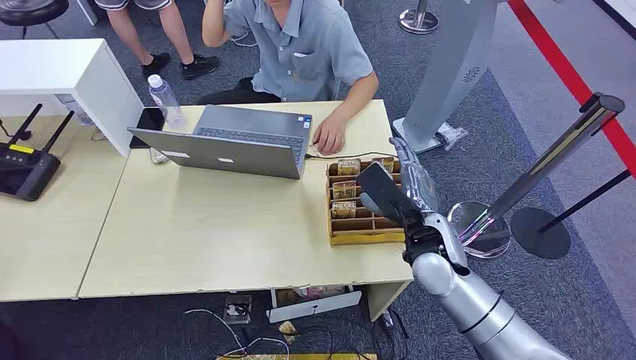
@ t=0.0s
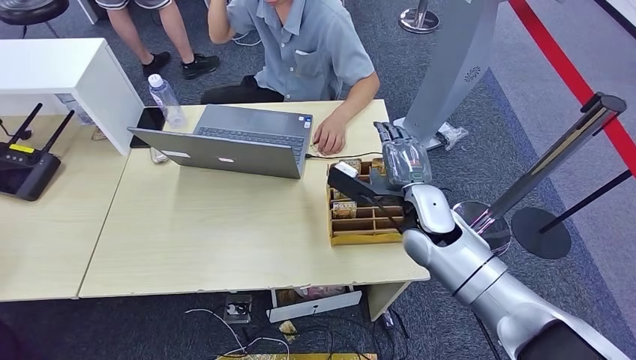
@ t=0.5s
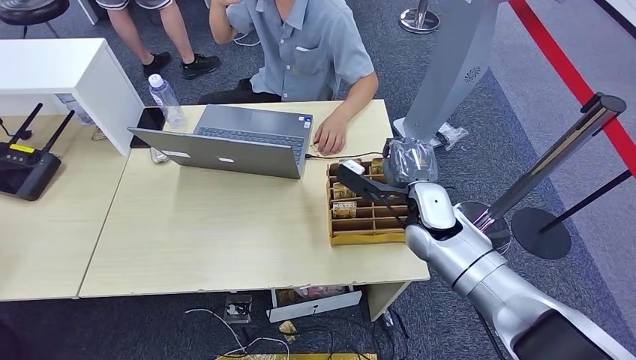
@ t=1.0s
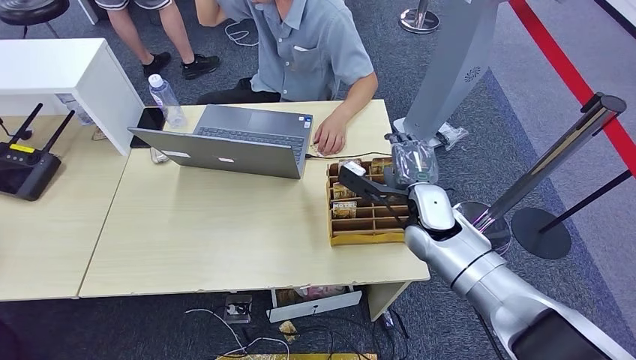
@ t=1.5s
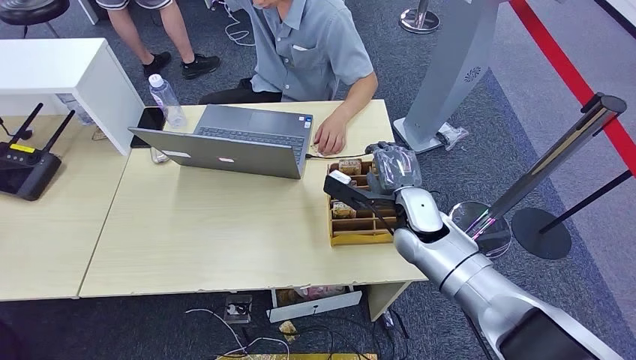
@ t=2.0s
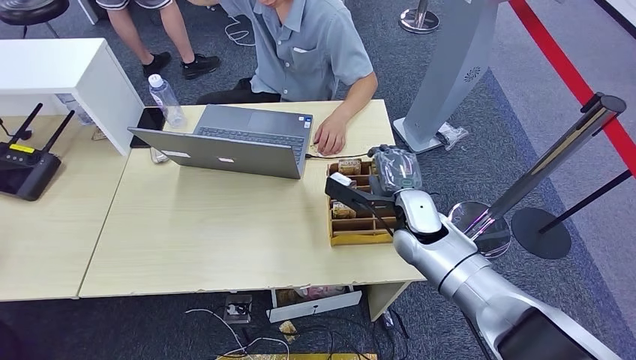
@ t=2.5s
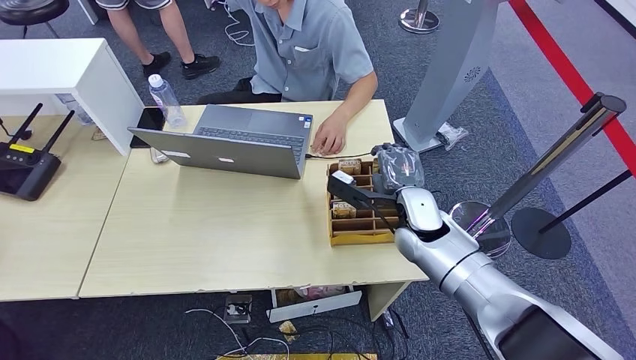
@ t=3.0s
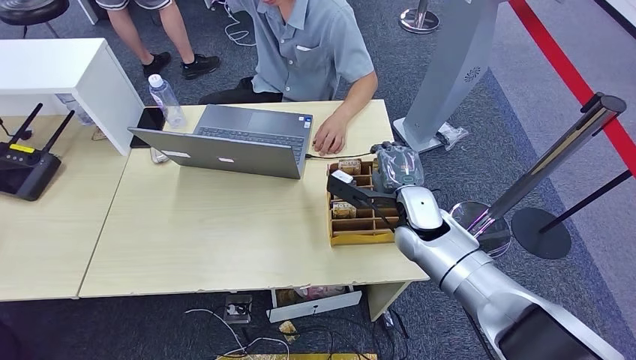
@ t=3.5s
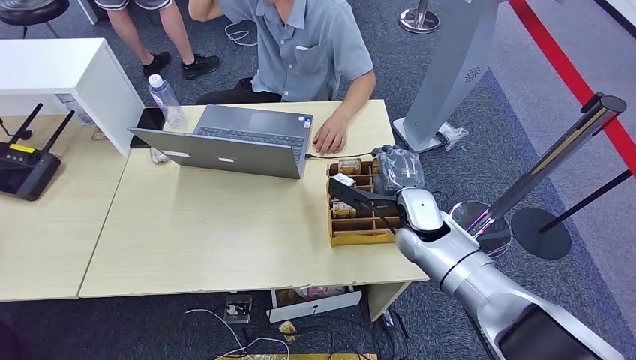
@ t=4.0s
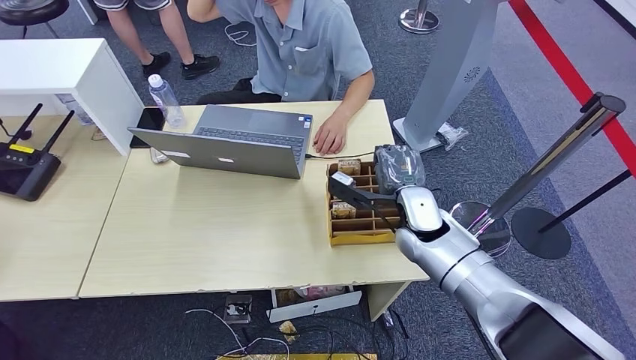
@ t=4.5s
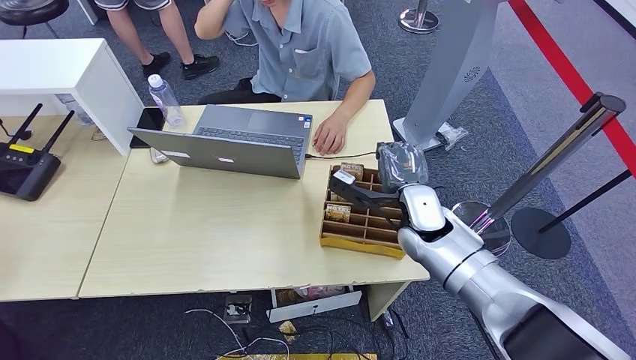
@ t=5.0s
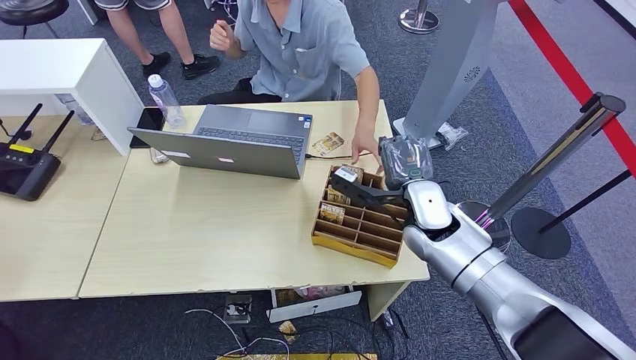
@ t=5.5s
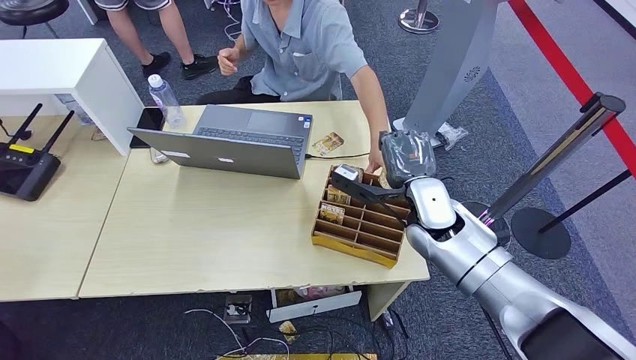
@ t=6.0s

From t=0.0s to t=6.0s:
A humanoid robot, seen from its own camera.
Step, from t=0.0s to t=5.0s: Pick up the room card from the card holder.
Step, from t=5.5s to t=6.0s: Hand the room card to the target.
From t=2.0s to t=6.0s: The hands move only a little.

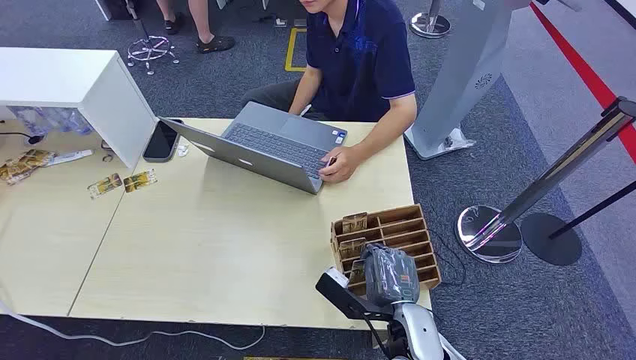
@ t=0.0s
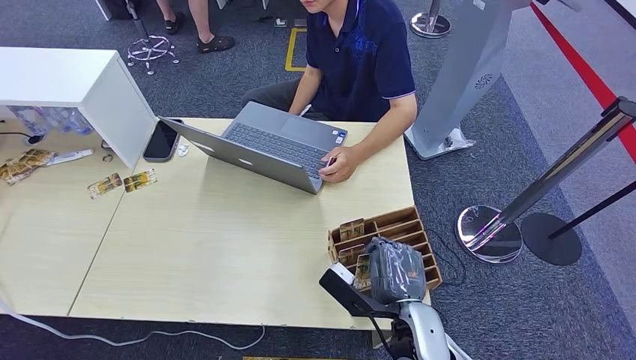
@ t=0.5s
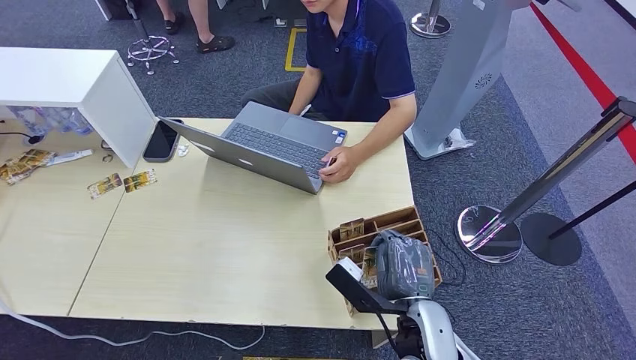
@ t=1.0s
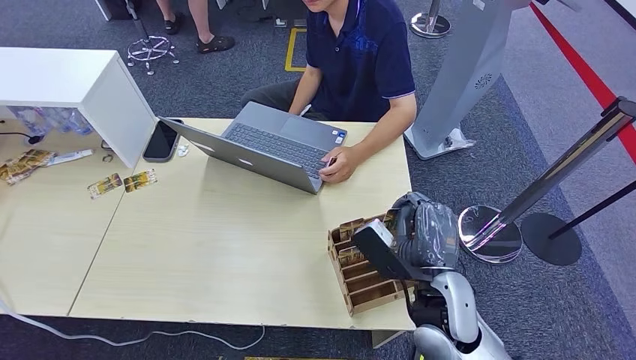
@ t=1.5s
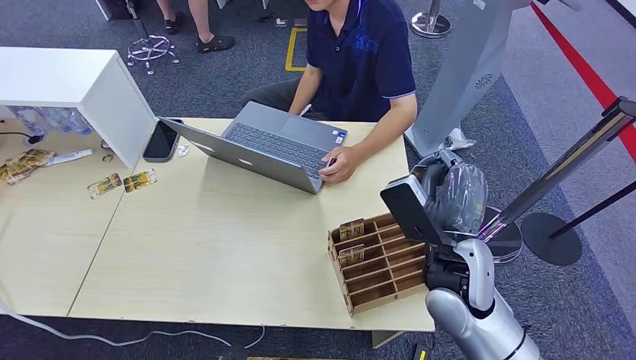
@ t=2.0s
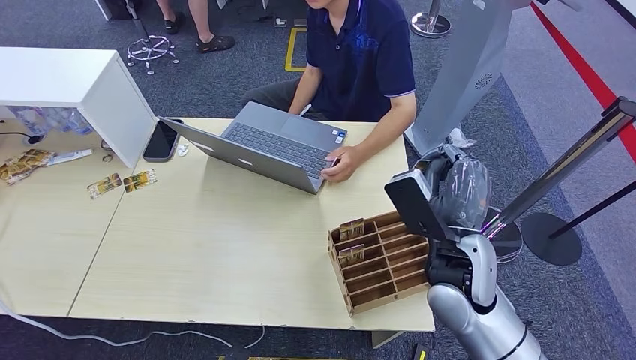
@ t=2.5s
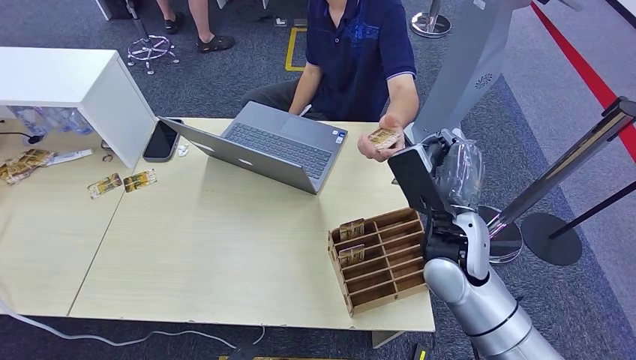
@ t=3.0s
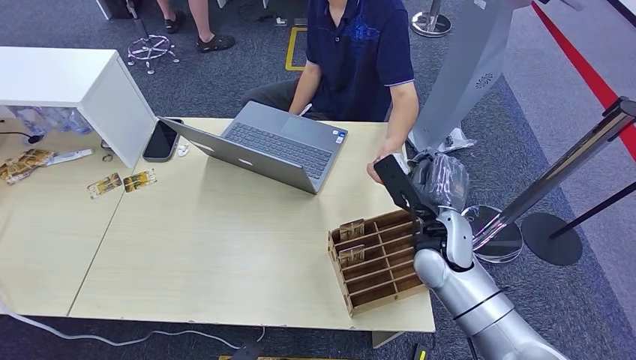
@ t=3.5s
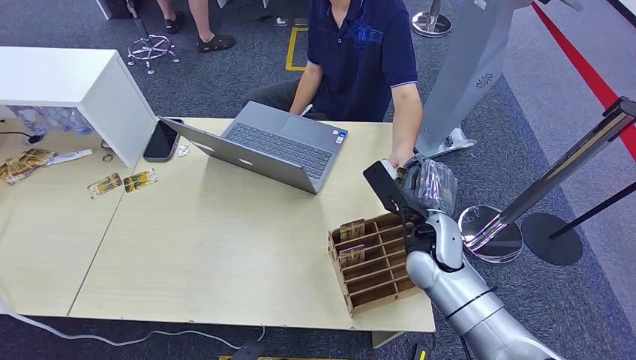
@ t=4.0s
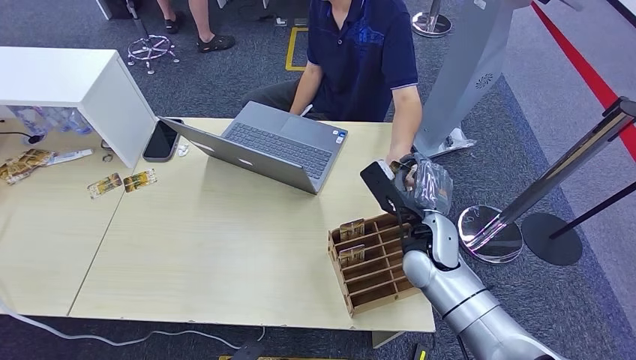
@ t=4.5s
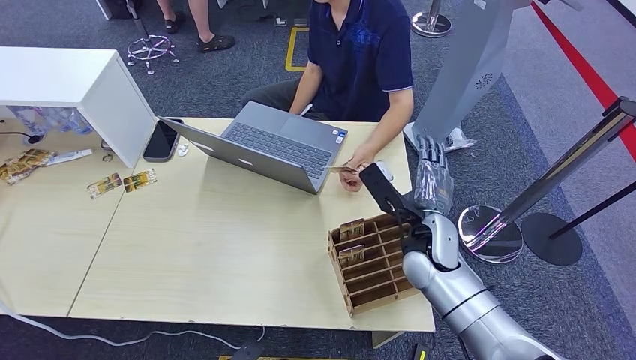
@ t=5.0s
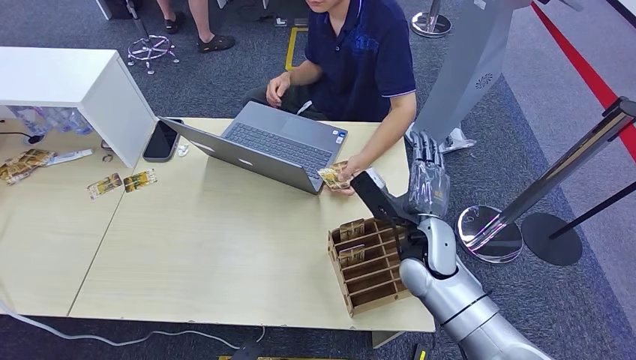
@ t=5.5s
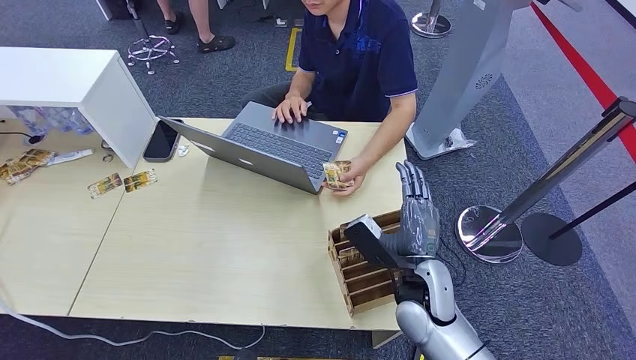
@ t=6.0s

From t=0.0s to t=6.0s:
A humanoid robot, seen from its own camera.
Step, from t=0.0s to t=2.0s: Pick up the room card from the card holder.
Step, from t=3.0s to t=6.0s: Hand the room card to the target.
From t=2.0s to t=4.0s: The right hand is displaced forward and downward by about 10 cm.
From t=4.0s to t=6.0s: The right hand shifts roughly 10 cm backward.

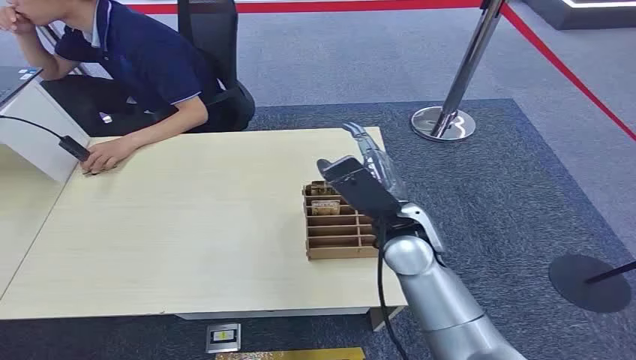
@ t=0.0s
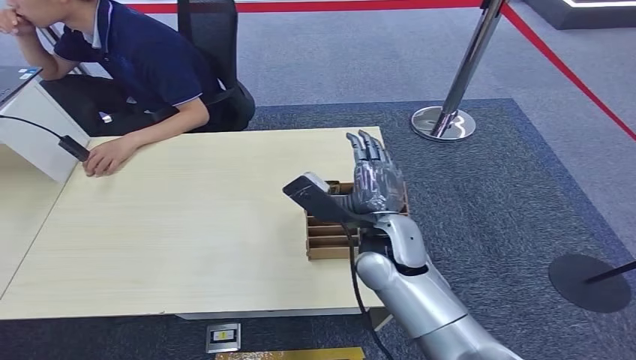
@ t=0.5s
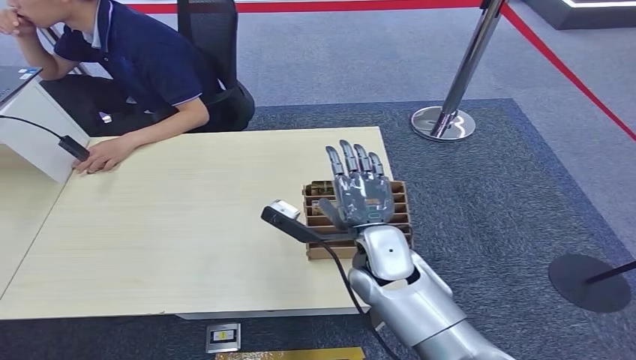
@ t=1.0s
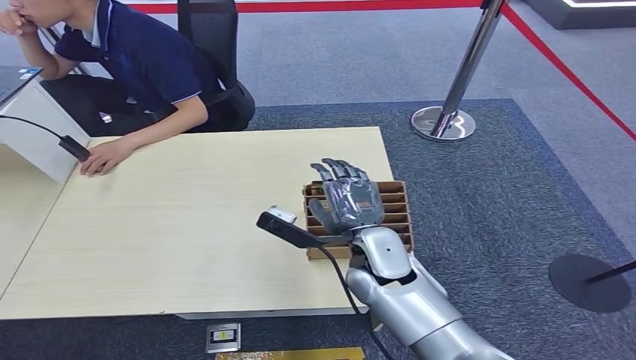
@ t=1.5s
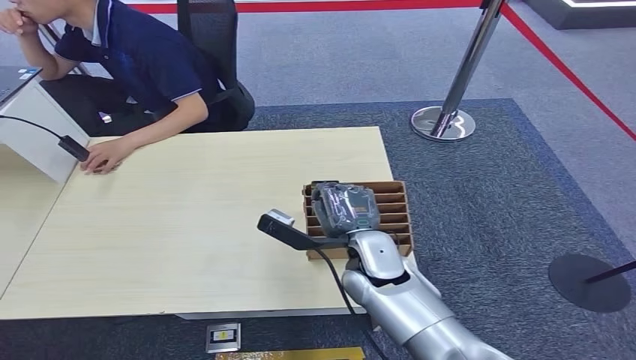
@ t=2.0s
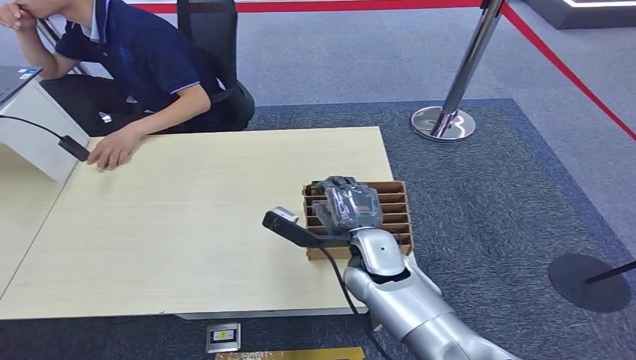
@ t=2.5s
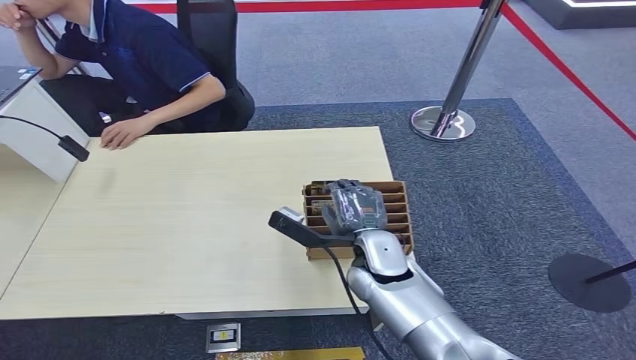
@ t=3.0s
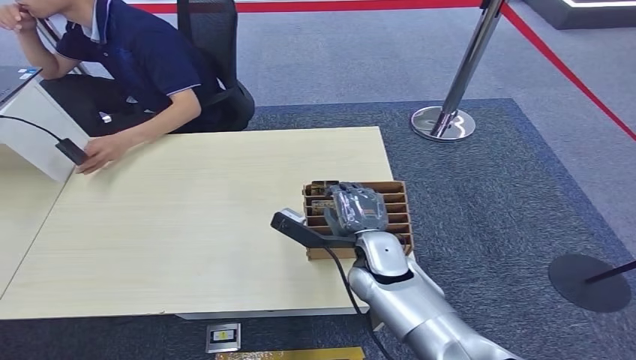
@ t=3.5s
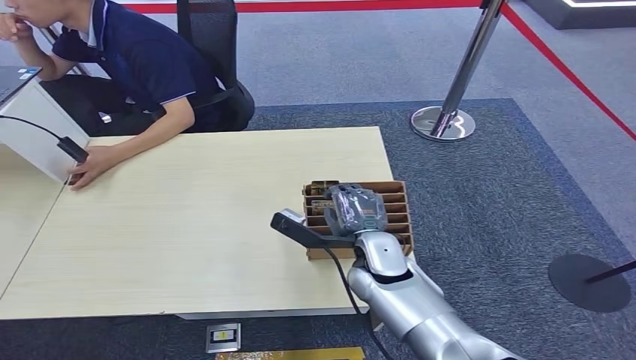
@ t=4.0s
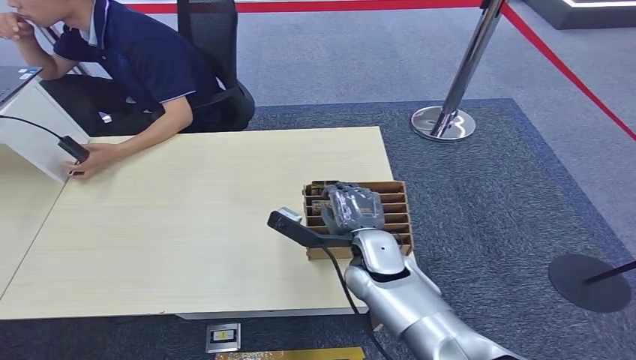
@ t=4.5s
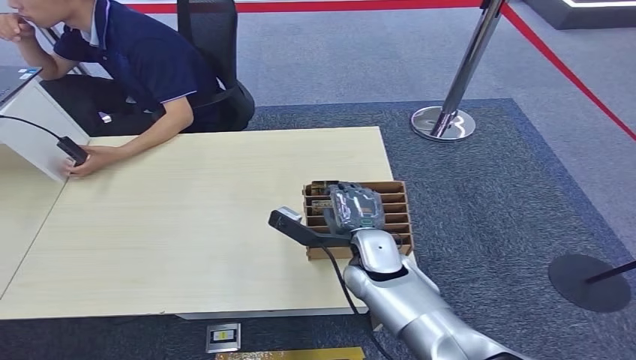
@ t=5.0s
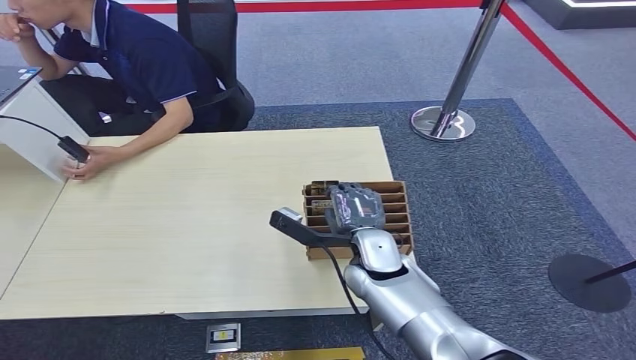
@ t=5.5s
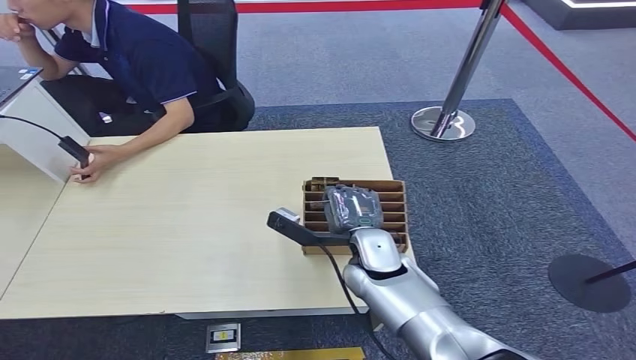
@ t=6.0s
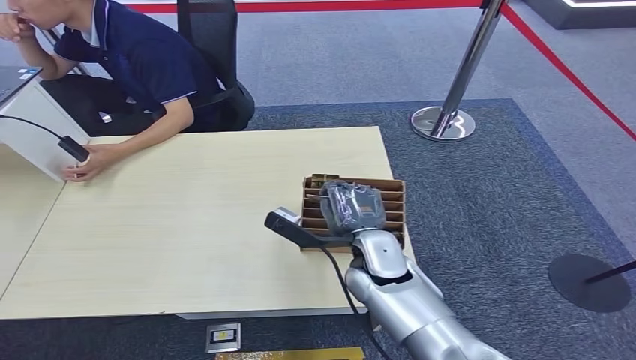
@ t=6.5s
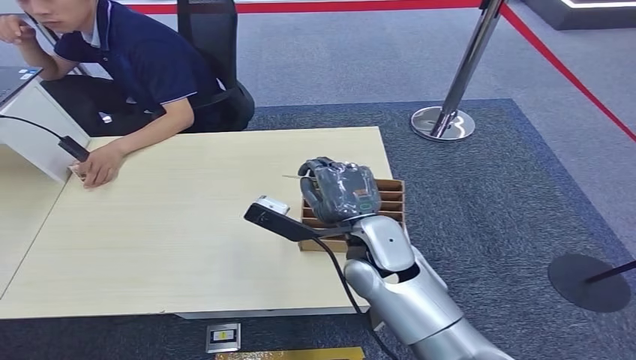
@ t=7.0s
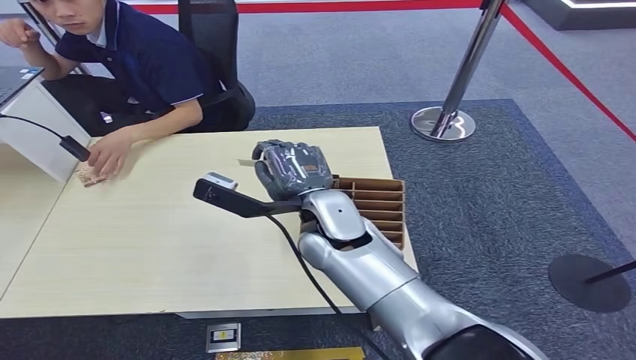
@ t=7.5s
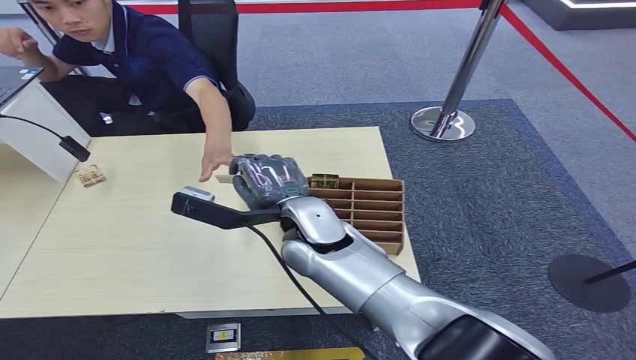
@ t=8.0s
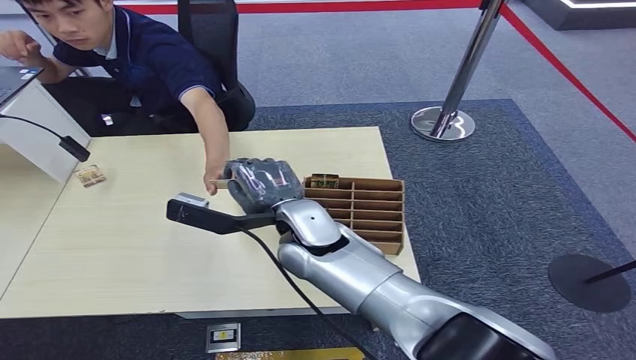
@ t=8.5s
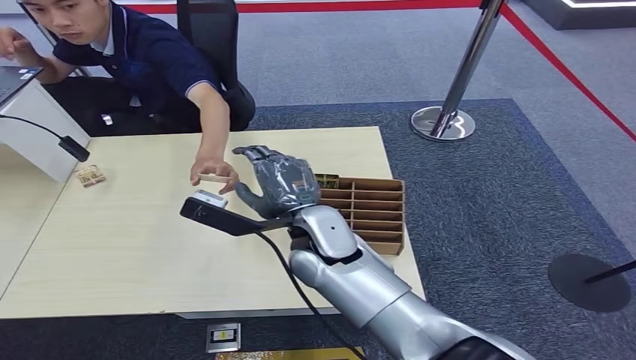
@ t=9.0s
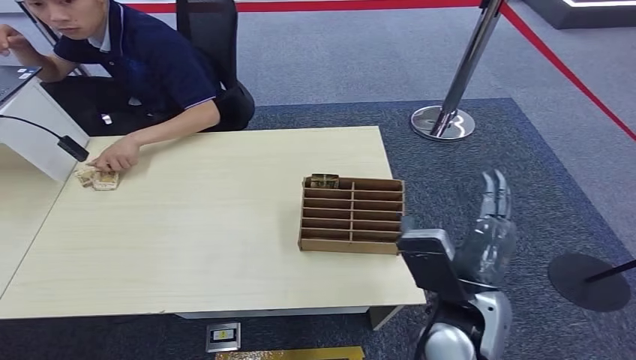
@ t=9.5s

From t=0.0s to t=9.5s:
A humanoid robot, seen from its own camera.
Step, from t=0.0s to t=6.5s: Pick up the room card from the card holder.
Step, from t=7.0s to t=9.5s: Hand the room card to the target.
From t=2.0s to t=4.0s: The hands move only a little.
From t=4.0s to t=5.5s: Neither hand changes place.
From t=5.5s to t=7.5s: The right hand travels upward and to the left by about 15 cm.
From t=7.5s to t=9.5s: The right hand travels backward and to the right by roughly 20 cm.
